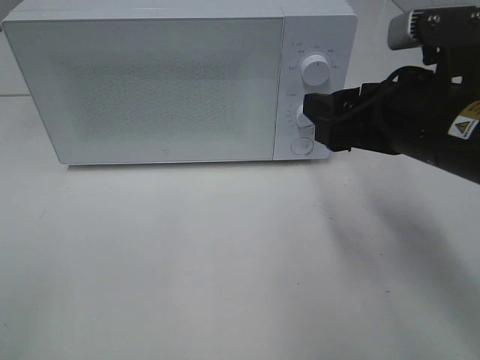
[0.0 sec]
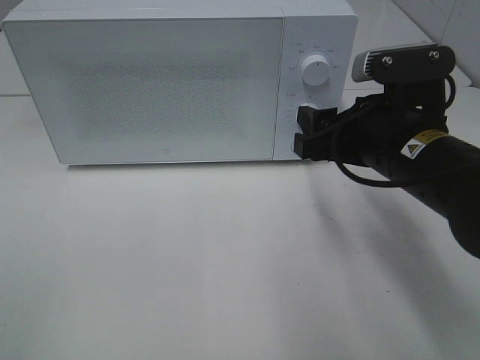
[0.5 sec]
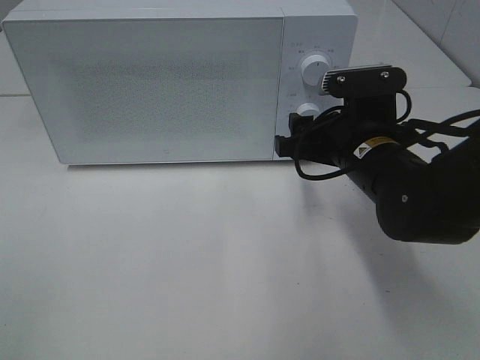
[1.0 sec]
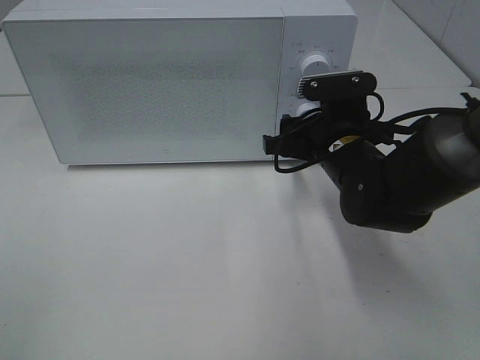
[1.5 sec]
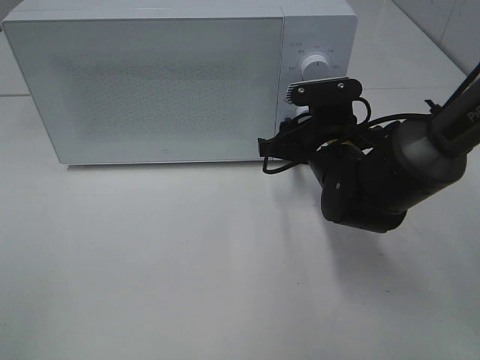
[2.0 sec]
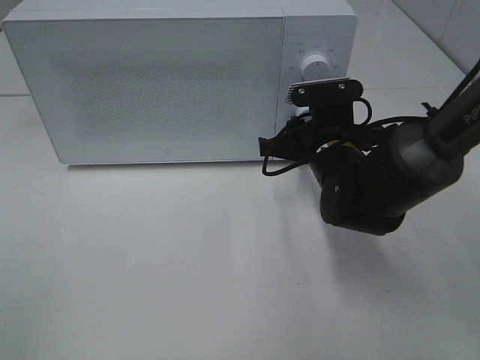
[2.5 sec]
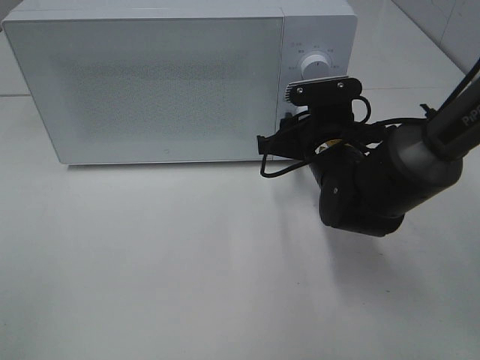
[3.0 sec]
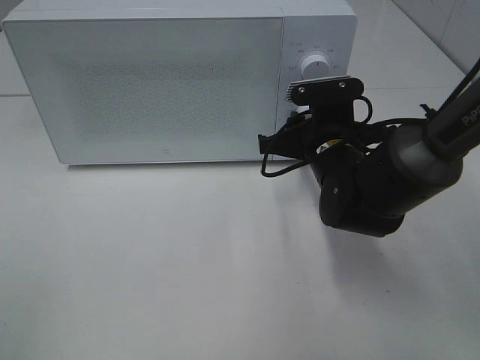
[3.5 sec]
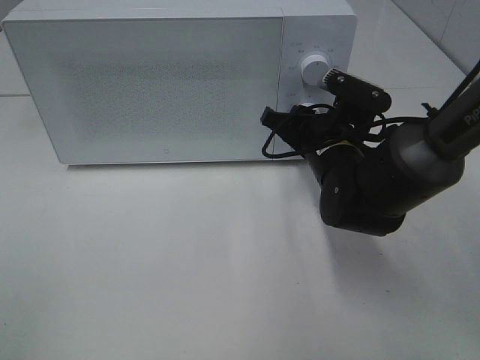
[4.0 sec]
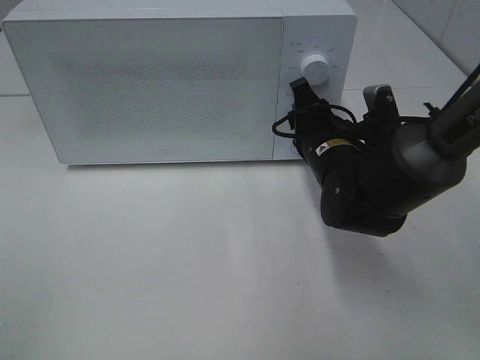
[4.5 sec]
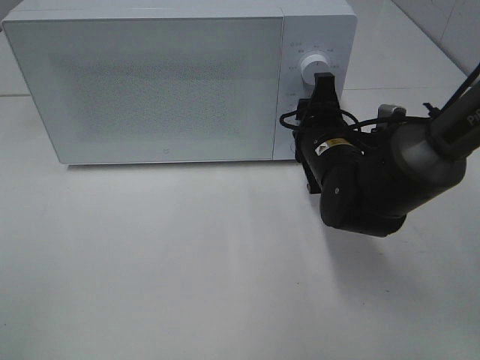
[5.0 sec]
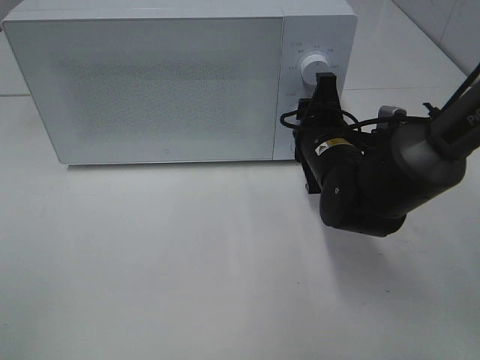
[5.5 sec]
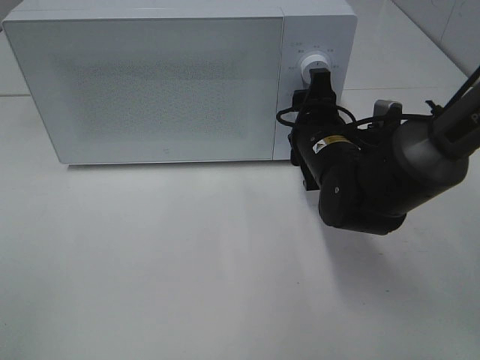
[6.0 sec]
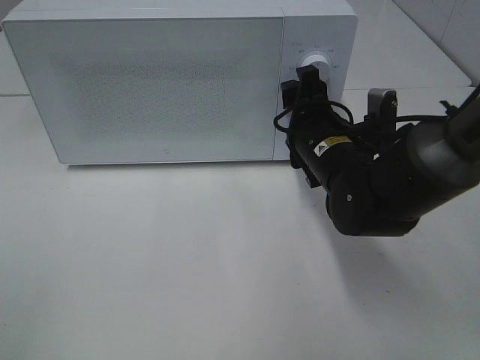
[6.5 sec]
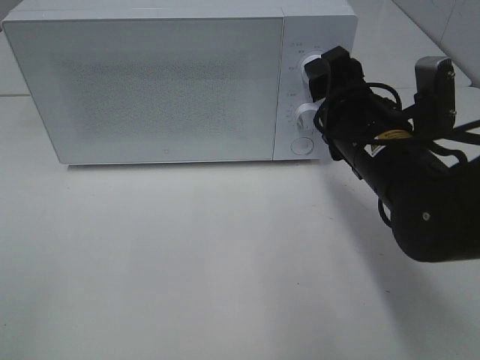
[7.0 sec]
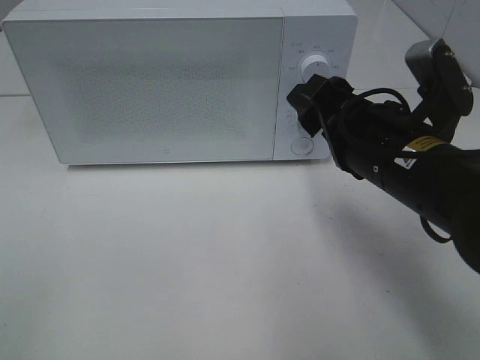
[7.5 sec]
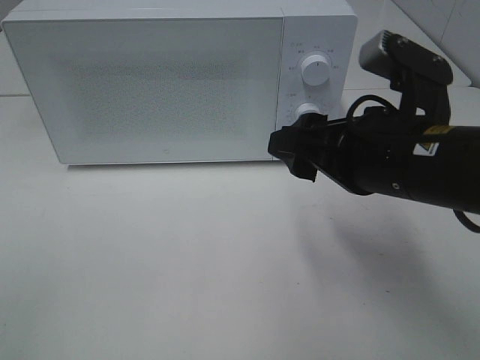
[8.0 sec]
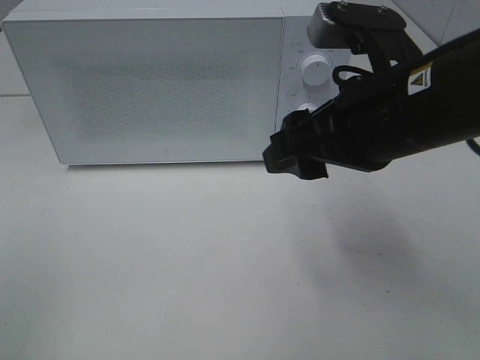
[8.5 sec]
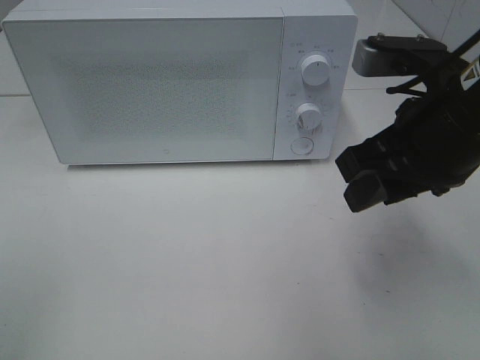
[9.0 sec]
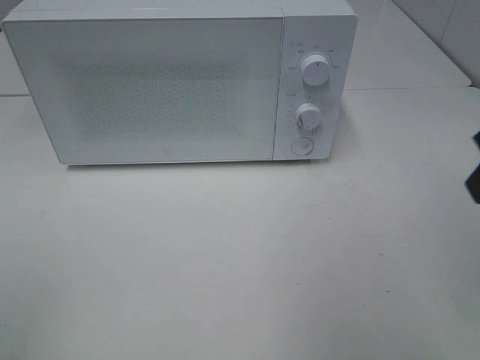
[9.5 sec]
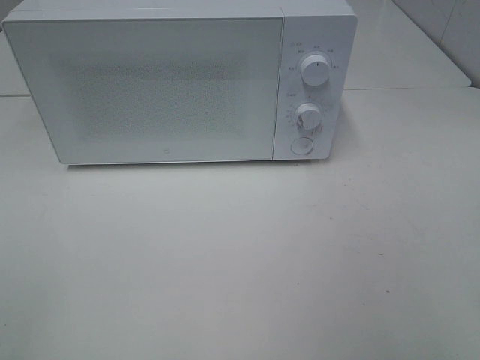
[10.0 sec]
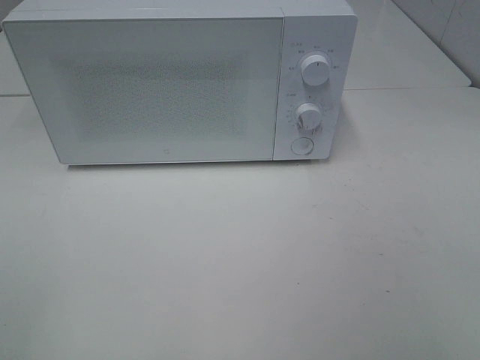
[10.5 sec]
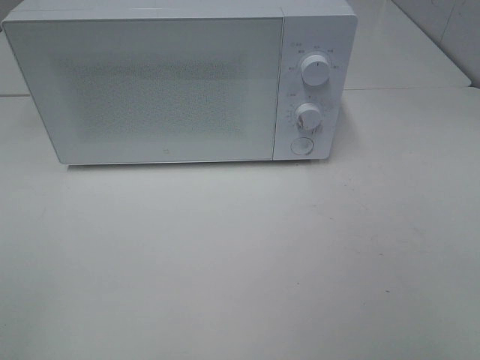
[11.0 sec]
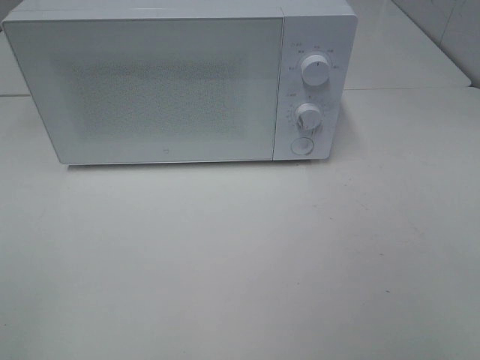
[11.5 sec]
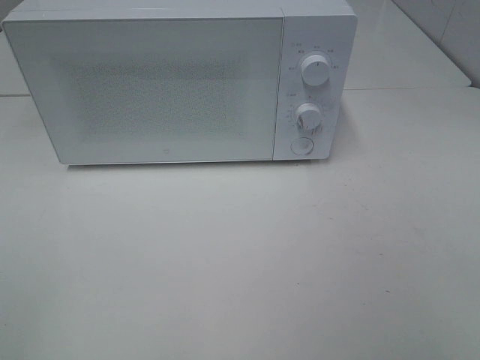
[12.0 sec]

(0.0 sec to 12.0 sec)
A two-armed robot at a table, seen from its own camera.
Task of the whole recording: Heat Sandwich.
Step, 0.0 sec - 6.5 sec: Right hand: twist timer button.
0.0 sec - 2.0 sec: The right gripper heads downward and forward, covering roughly 15 cm.
6.0 sec - 8.0 sec: The right gripper shifts about 15 cm backward and upward.
8.0 sec - 10.0 sec: The right gripper shifts approximately 20 cm to the right, backward and upward, and closes, then reopens.

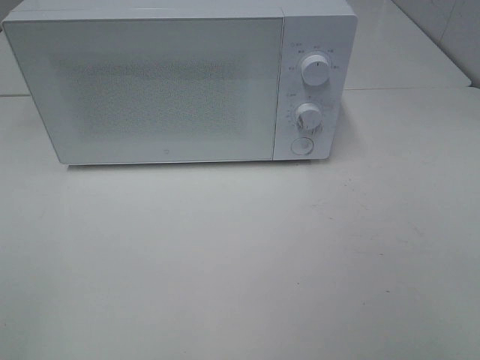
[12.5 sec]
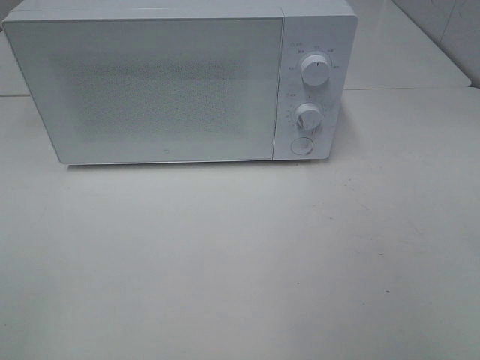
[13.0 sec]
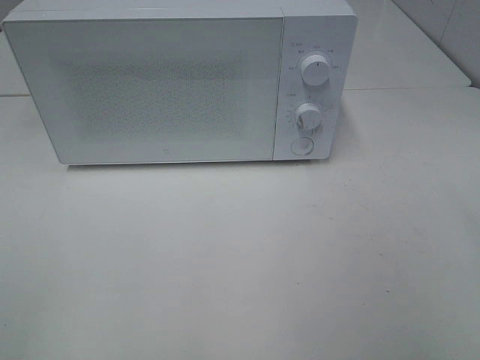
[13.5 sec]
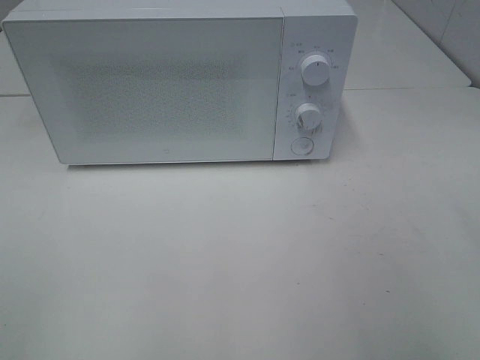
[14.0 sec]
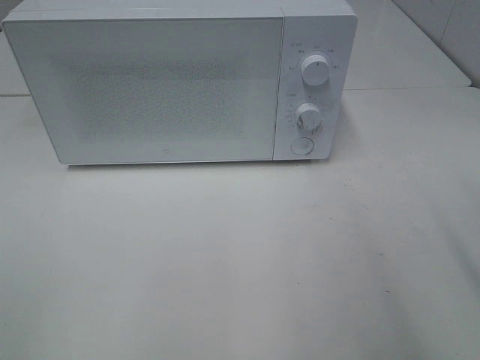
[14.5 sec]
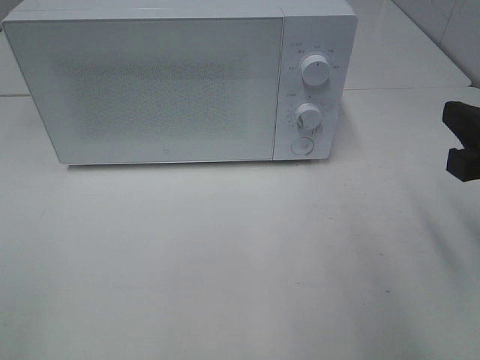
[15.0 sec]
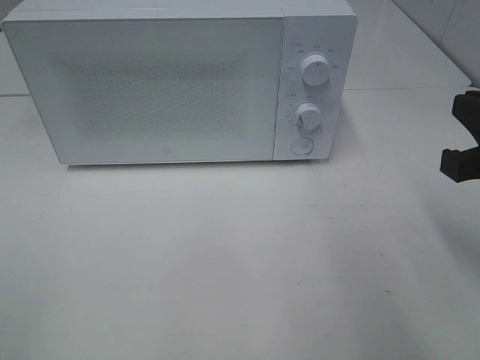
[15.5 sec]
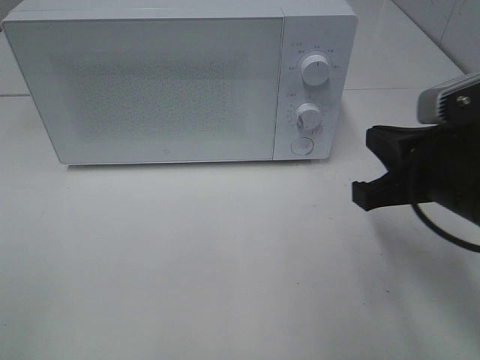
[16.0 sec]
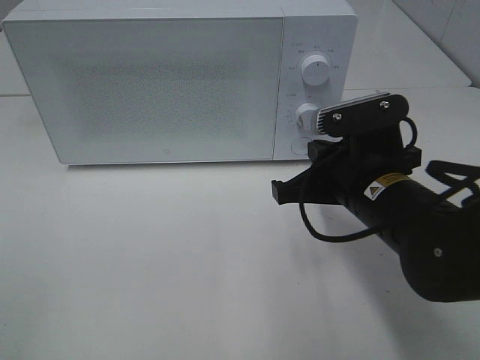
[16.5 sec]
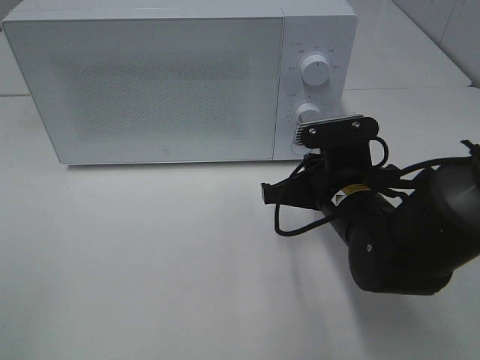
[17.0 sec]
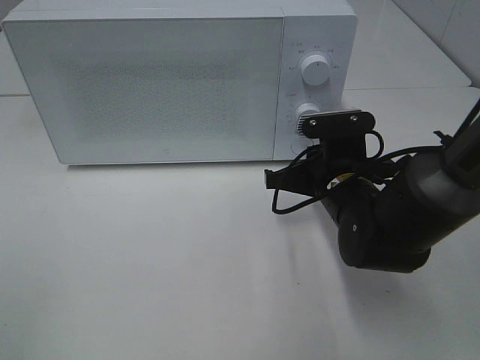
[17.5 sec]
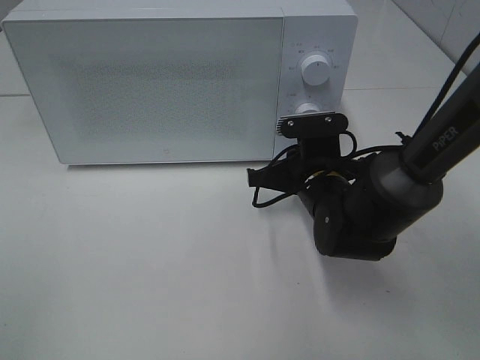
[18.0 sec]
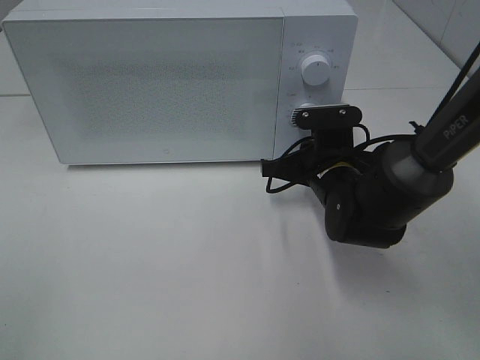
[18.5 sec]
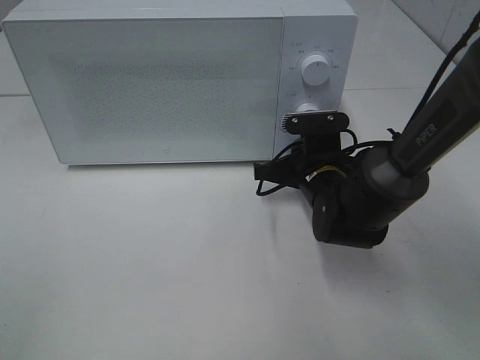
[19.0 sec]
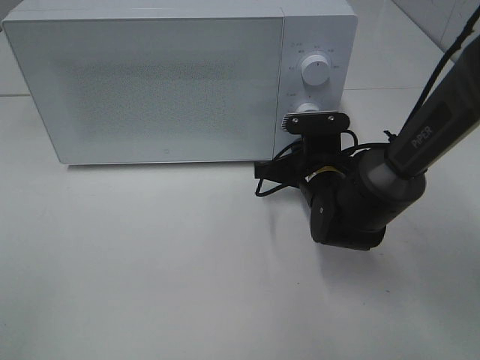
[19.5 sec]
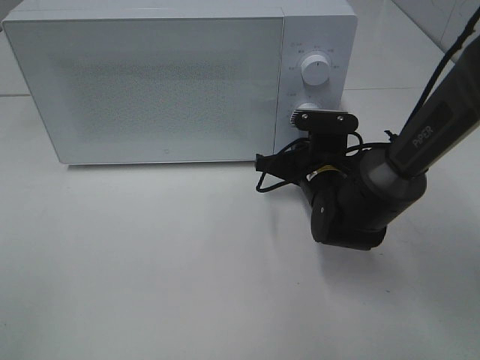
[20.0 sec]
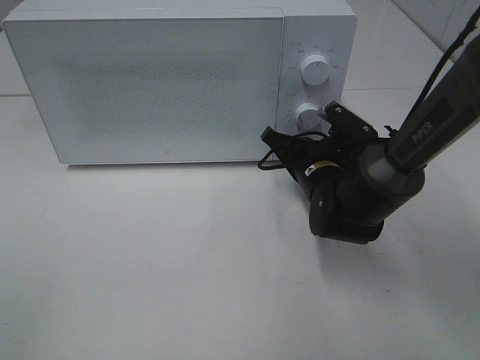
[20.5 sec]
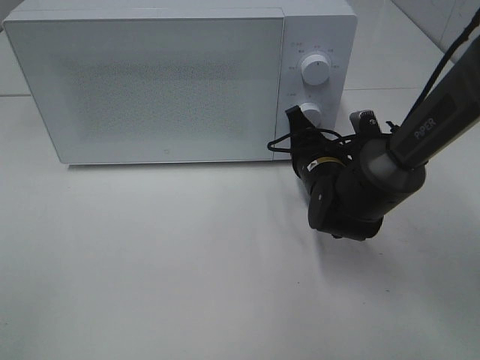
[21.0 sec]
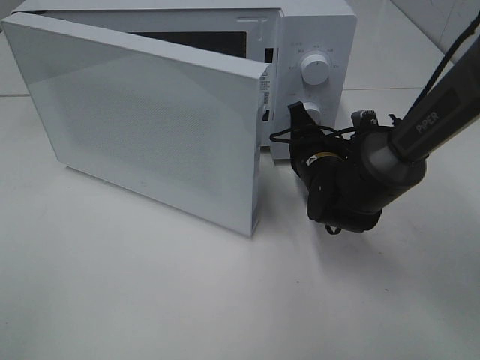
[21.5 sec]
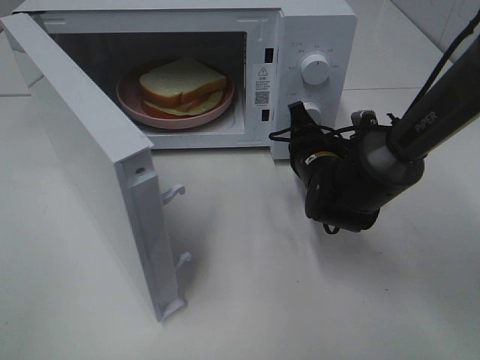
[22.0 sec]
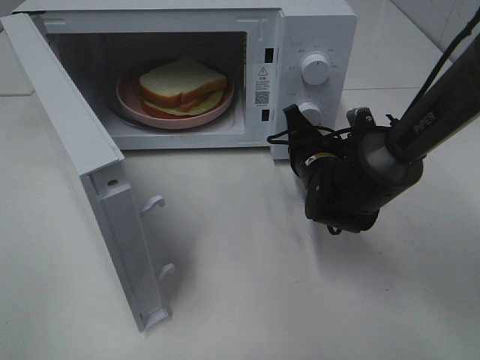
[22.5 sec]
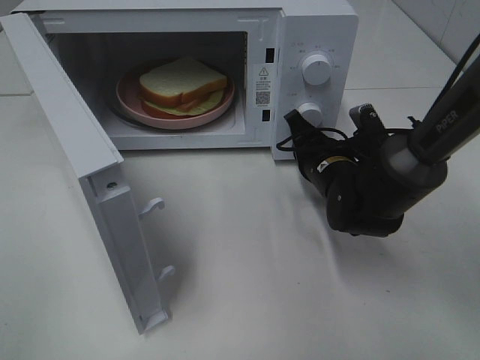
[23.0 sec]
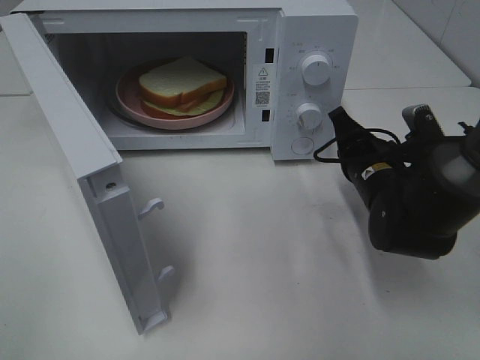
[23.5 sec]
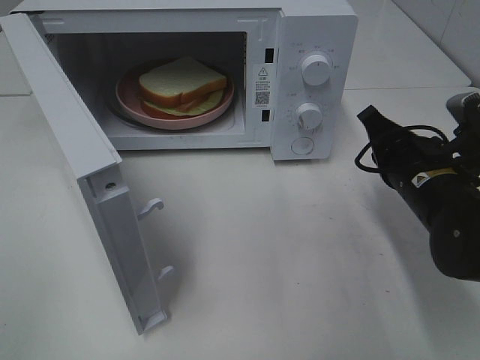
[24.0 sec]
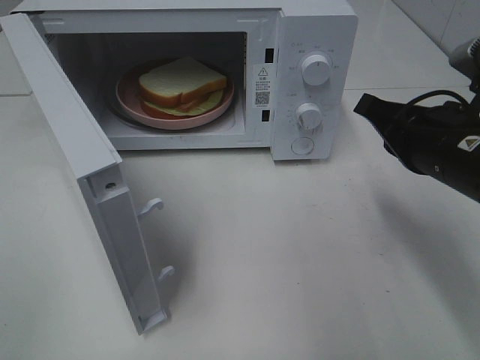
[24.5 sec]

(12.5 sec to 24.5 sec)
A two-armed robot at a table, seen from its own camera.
Task of the whole recording: Heat Sandwich.
Step, 12.5 sec - 23.0 sec: Right hand: press the switch.
14.5 sec - 16.5 sec: The right gripper heads to the left, downward and forward, covering about 20 cm, and closes its fingers.
16.5 sec - 18.5 sec: The right gripper travels forward and downward by some 10 cm.
22.5 sec - 24.5 sec: The right gripper shifts approximately 20 cm backward, upward and to the right.

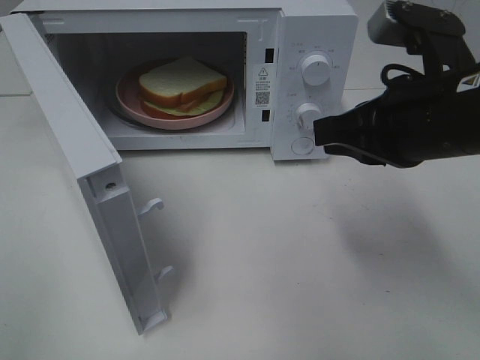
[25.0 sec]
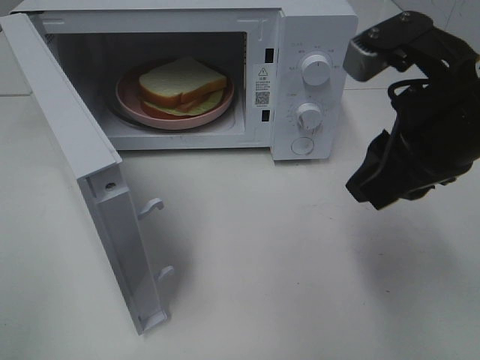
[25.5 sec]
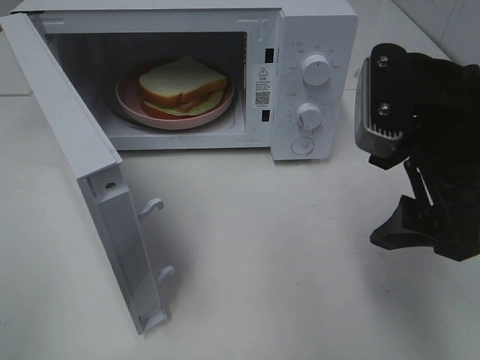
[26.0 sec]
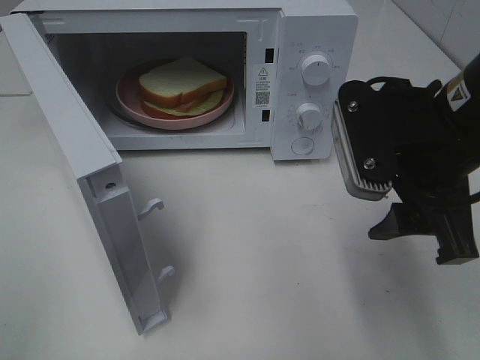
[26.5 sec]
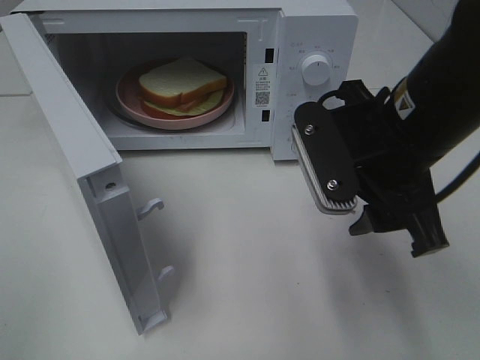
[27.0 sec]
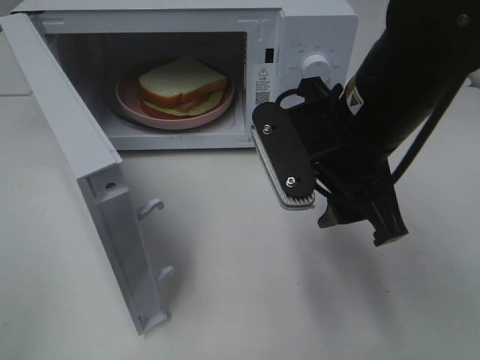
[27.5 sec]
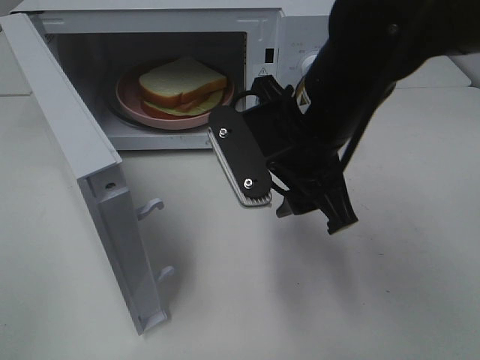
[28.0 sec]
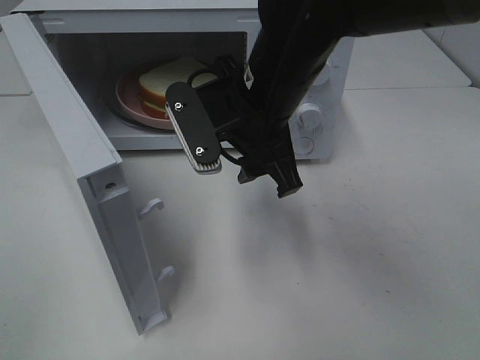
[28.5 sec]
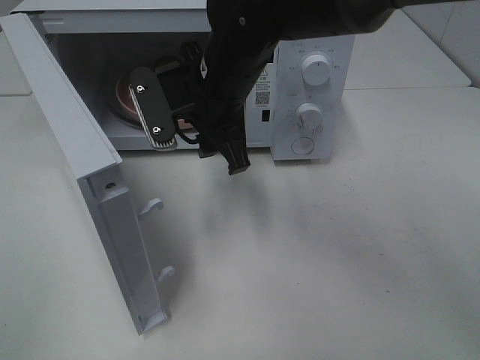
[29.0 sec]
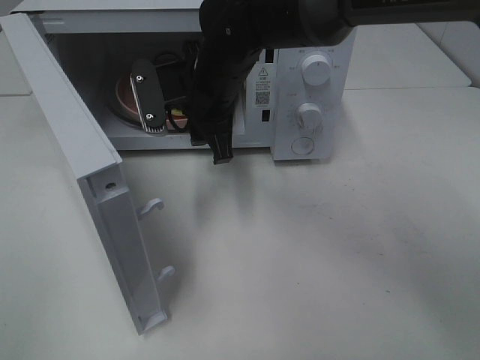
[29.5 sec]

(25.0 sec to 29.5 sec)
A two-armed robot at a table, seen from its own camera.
Task of the whole recording: Heat Sandwich.
25.0 sec - 27.0 sec: The right gripper opens.
27.0 sec - 29.5 sec: The right gripper travels forward and to the left by about 20 cm.
